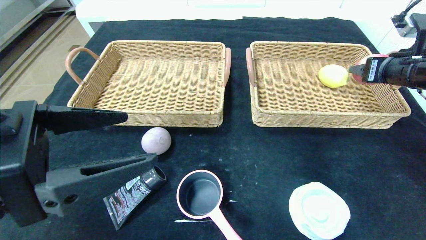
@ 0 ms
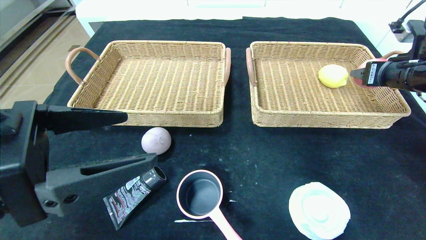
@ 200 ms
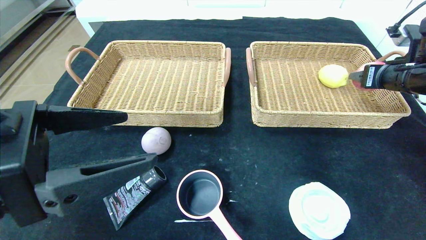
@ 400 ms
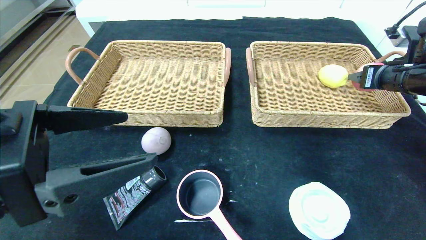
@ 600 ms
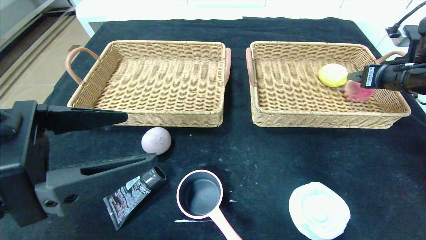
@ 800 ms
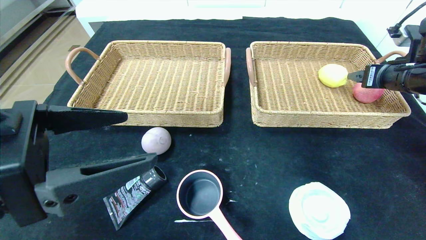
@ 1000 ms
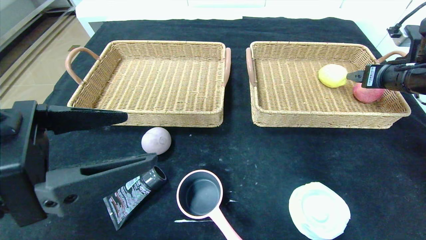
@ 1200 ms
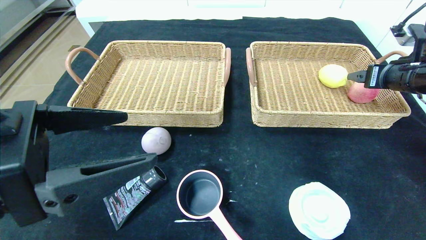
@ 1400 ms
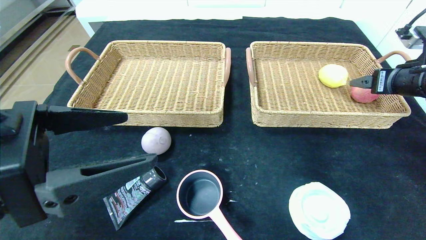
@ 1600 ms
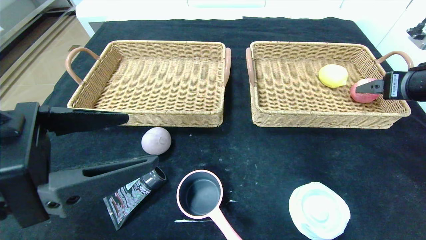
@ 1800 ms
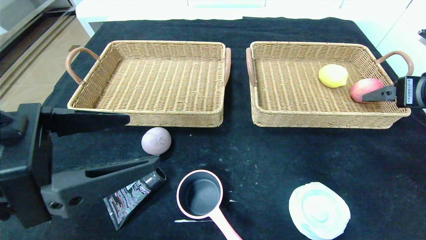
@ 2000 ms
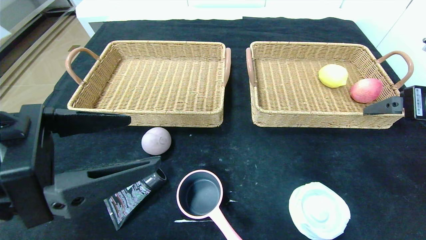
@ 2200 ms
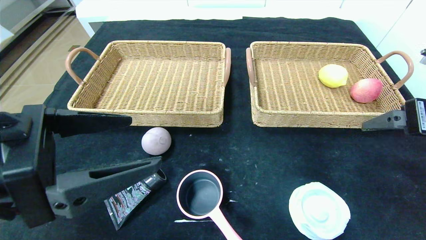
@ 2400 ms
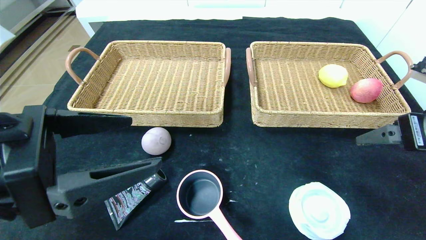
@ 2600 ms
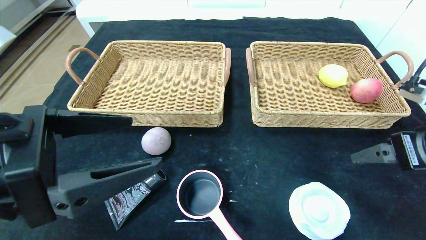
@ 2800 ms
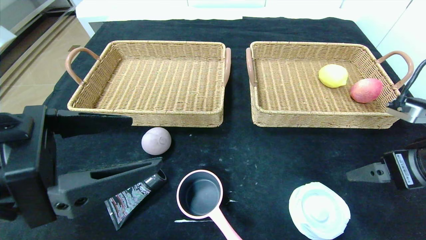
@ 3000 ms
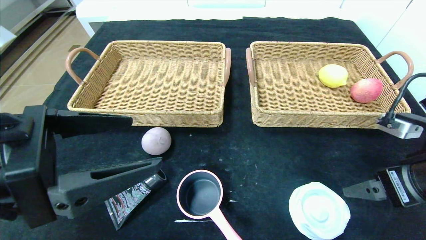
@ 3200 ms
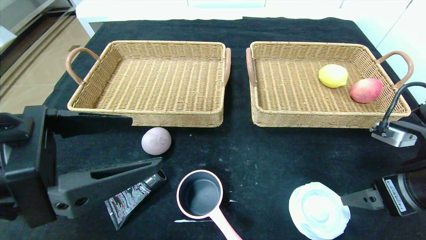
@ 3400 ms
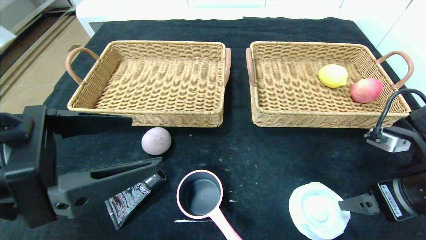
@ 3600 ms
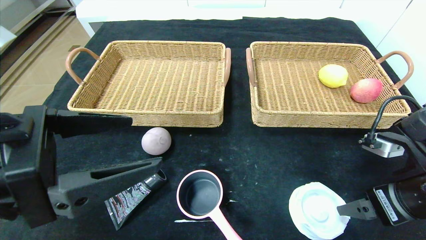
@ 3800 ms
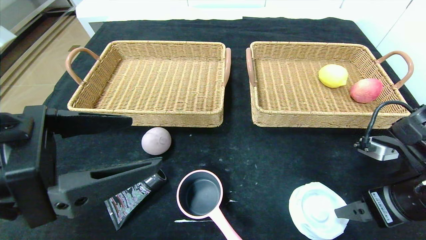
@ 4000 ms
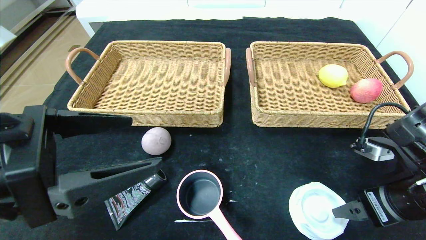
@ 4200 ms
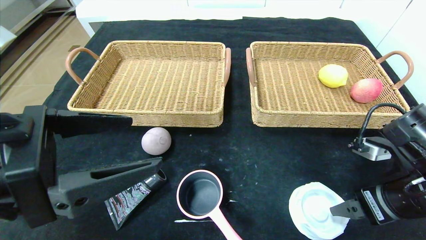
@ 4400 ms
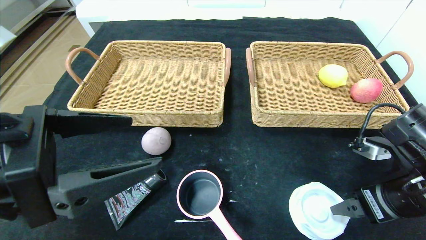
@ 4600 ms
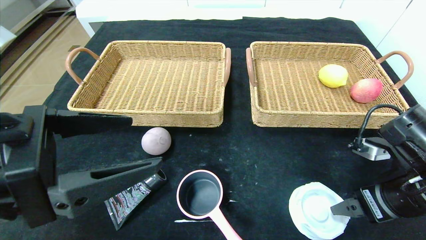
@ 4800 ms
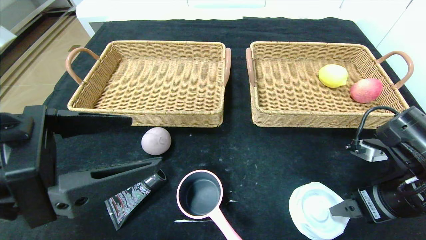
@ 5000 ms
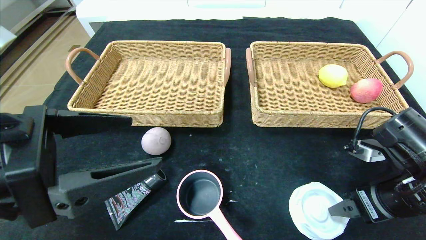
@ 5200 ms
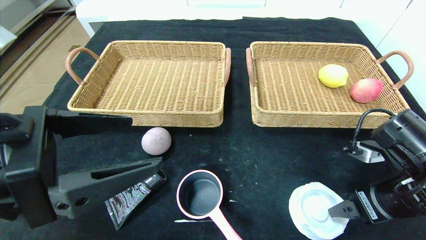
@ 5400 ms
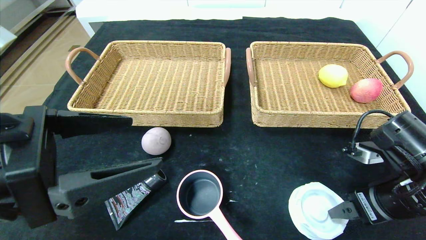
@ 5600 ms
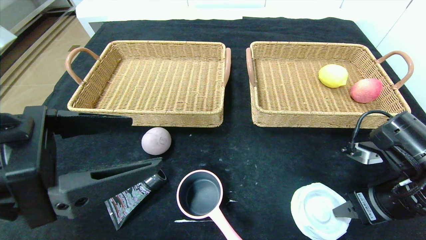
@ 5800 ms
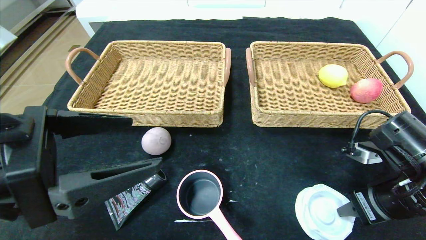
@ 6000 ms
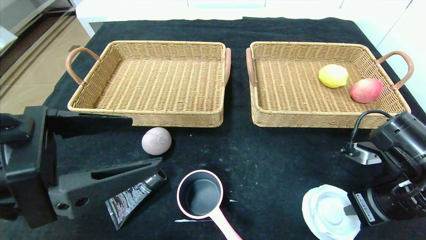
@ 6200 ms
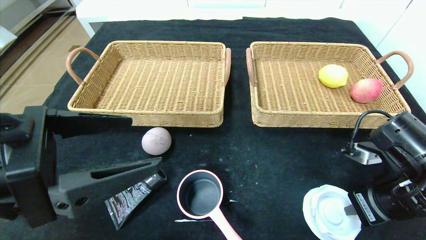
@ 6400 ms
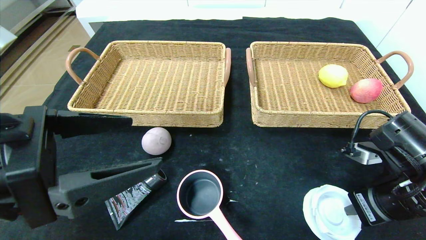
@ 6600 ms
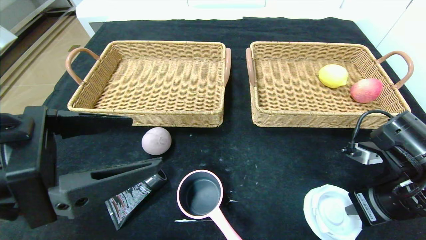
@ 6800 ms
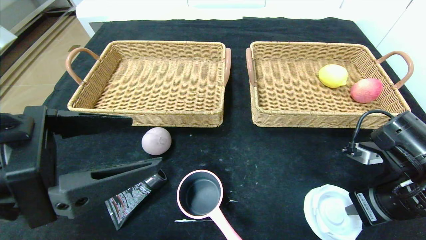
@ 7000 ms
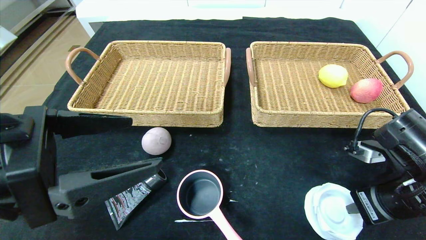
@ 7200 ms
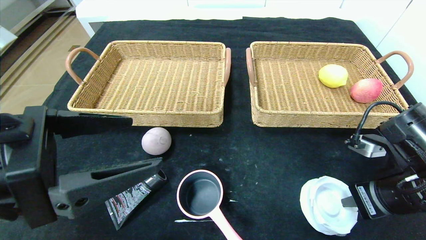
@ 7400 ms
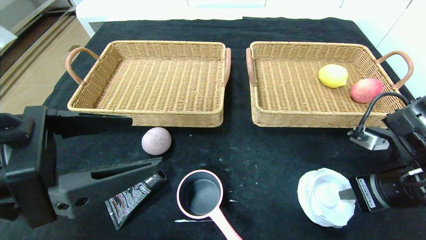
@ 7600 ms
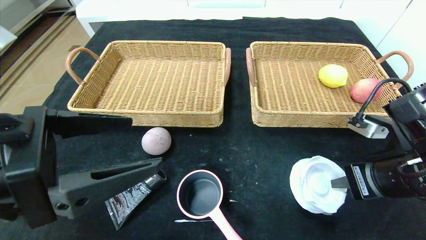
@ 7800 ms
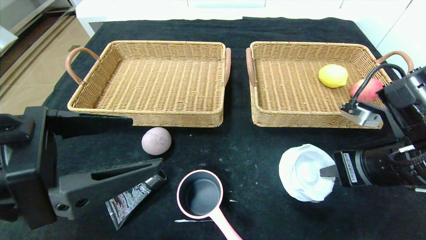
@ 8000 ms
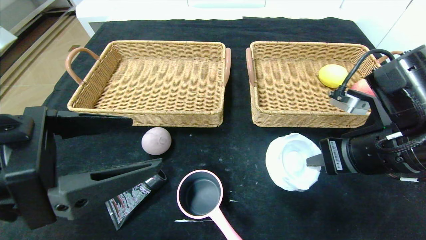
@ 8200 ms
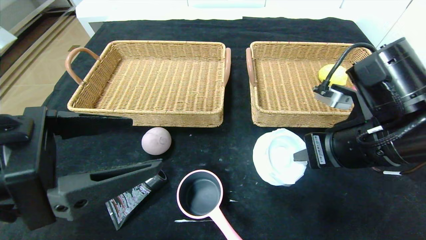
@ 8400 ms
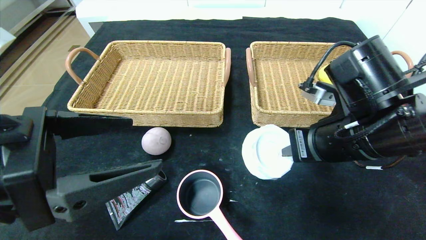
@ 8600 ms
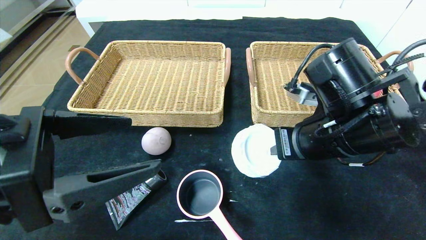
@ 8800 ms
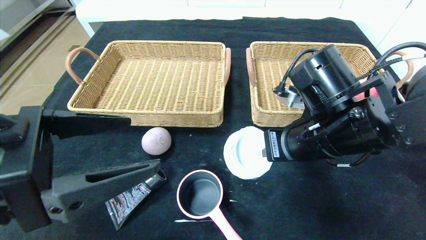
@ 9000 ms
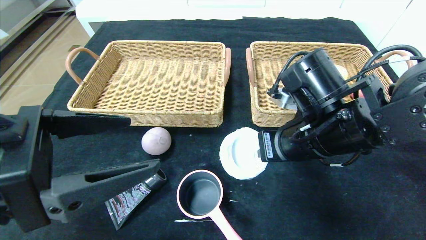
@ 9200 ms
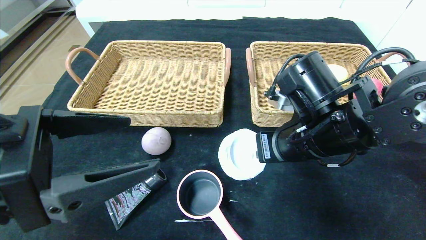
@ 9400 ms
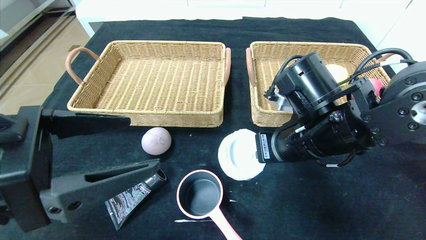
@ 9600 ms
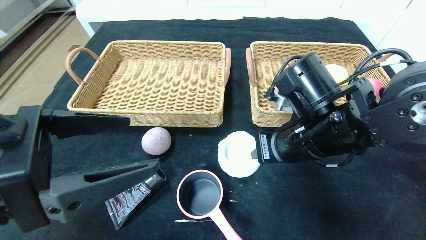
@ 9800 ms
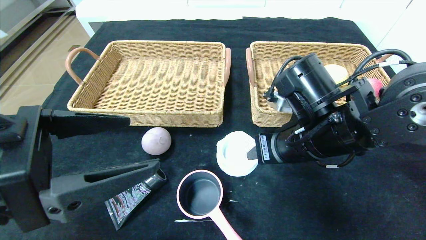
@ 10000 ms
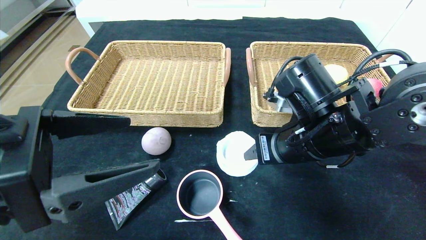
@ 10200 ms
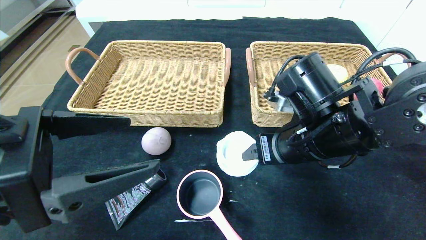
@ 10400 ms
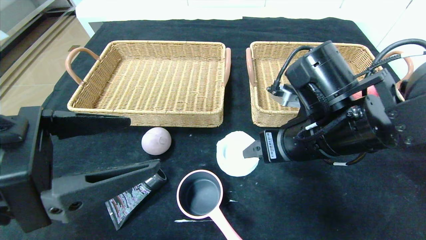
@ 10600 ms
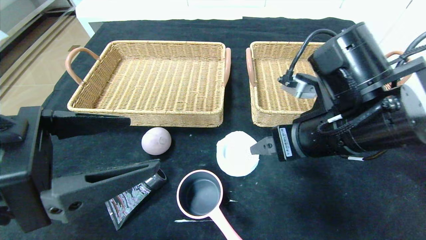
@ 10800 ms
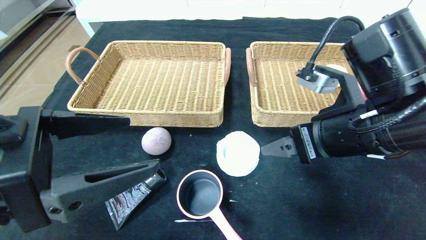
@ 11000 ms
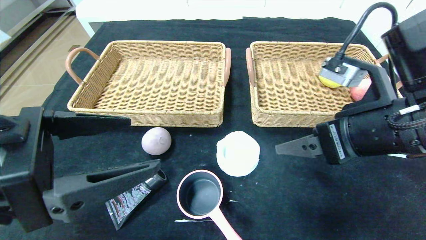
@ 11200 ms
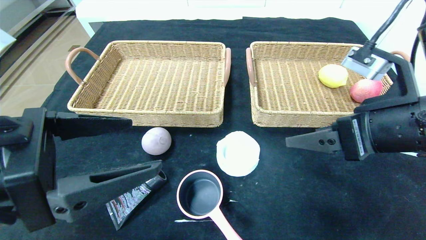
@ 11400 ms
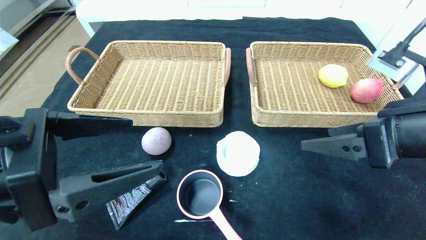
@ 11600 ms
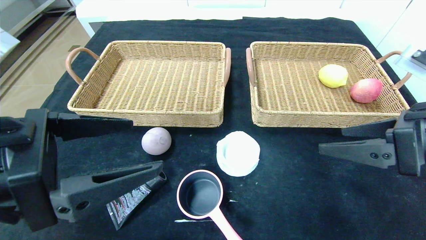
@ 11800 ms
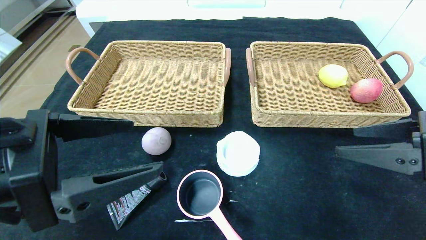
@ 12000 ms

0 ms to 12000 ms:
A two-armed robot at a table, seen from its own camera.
Step, 0 ms to 2800 ms: Pick up the peach and put it in the right basket.
Step, 3000 ms to 11600 ms: Place the tape in the center of the table.
0 ms to 1600 ms: The grippers move only a little.
1600 ms to 3000 ms: The right gripper shifts roughly 15 cm backward and to the left.
3000 ms to 4400 ms: The right gripper travels downward by some 5 cm.
4400 ms to 6000 ms: The right gripper closes up.
6000 ms to 7600 ms: The right gripper closes its fingers.
7600 ms to 9000 ms: The right gripper goes approximately 10 cm to the left.
9000 ms to 10400 ms: The right gripper opens its fingers.
10400 ms to 12000 ms: The right gripper moves to the right and backward, roughly 15 cm.

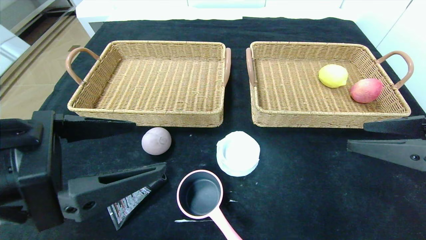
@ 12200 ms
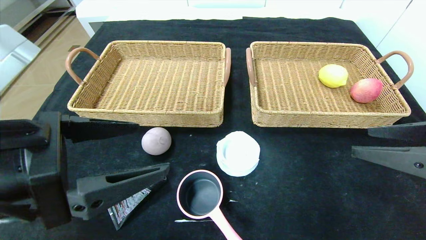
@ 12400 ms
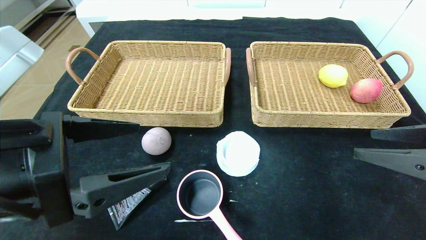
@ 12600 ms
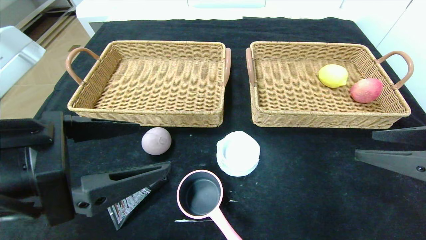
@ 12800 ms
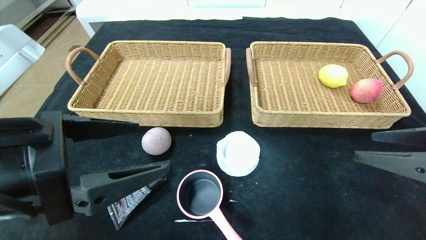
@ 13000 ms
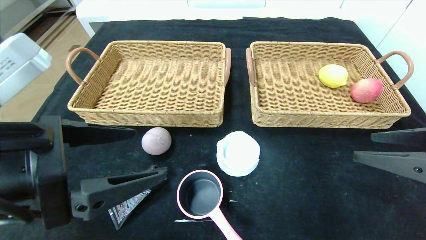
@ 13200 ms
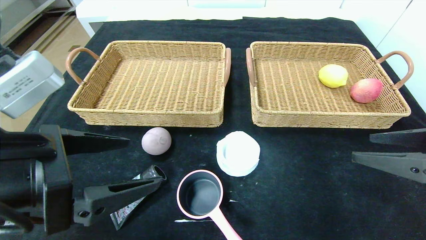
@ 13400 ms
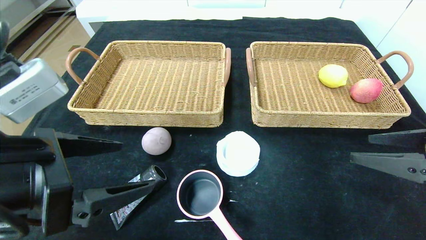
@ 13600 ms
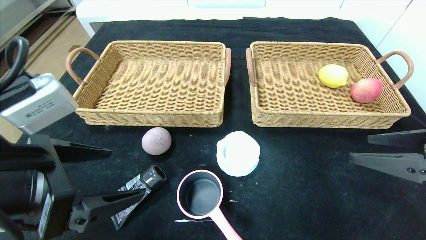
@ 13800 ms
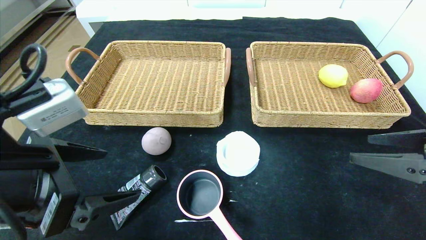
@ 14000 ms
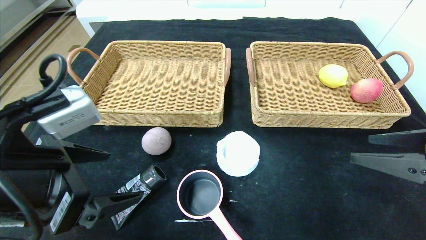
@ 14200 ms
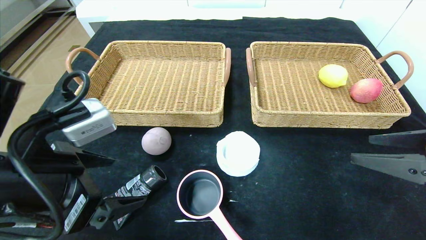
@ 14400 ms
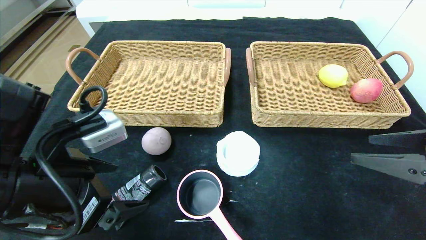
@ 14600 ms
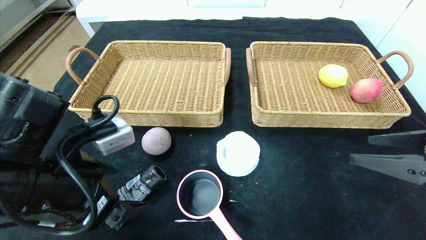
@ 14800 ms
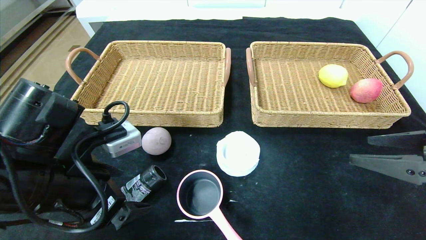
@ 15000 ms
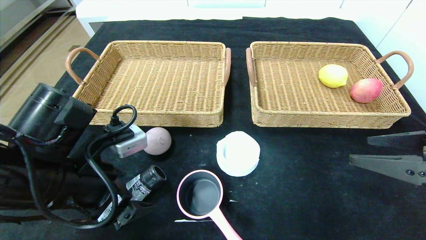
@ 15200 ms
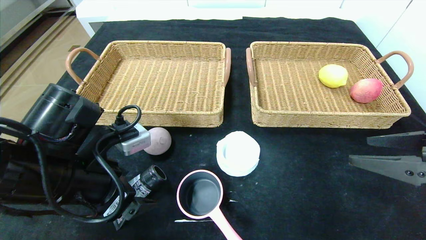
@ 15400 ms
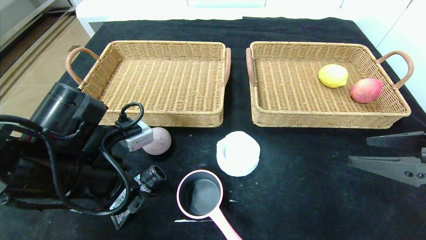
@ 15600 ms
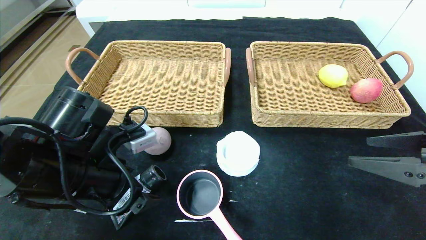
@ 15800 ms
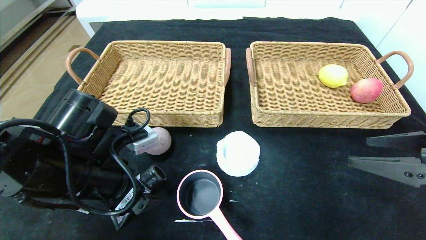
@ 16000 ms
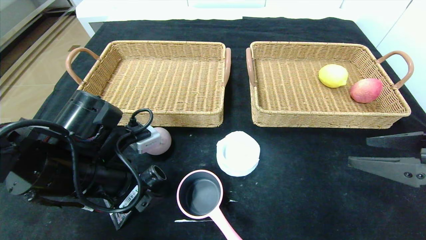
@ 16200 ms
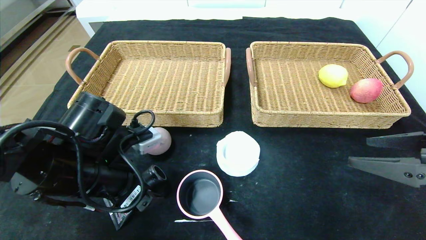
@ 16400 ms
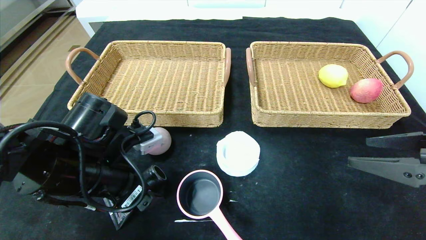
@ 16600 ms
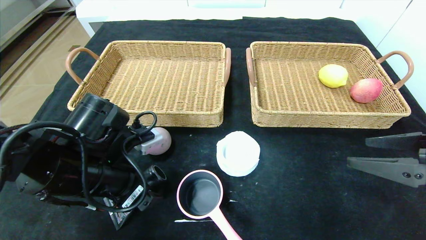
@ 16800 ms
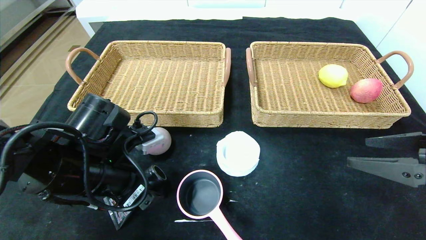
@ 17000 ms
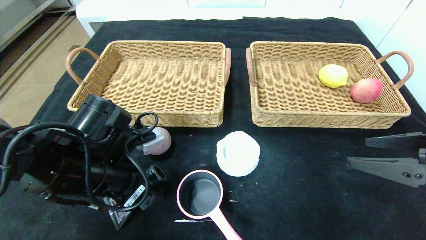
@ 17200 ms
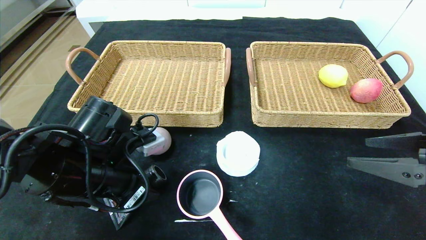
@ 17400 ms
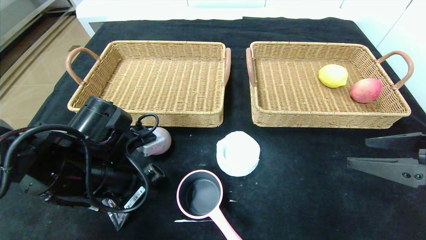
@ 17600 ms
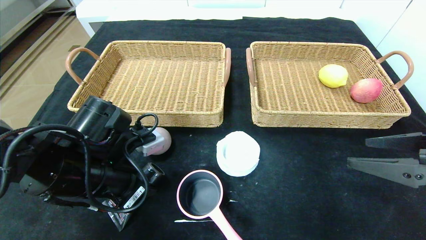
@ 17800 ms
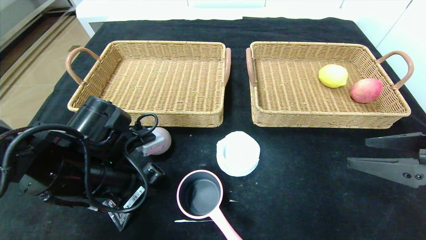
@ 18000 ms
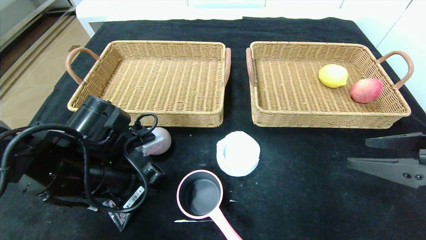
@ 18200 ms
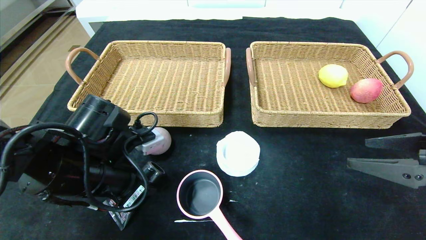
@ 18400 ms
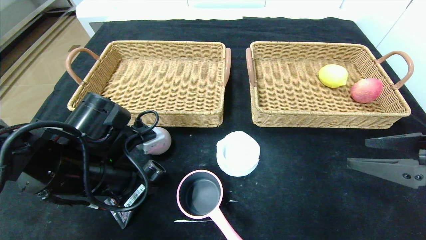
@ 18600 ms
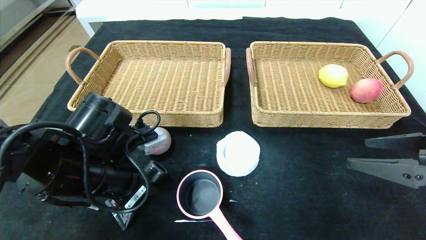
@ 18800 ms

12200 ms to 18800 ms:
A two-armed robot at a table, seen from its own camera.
13800 ms to 15400 ms: The left gripper shifts about 10 cm forward and downward.
15400 ms to 17200 ms: The grippers stay close to where they were, moving slightly.
17200 ms to 18800 ms: The left gripper closes.
